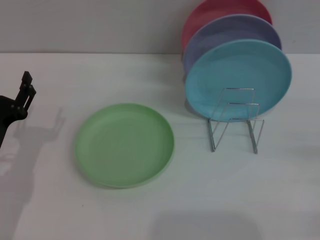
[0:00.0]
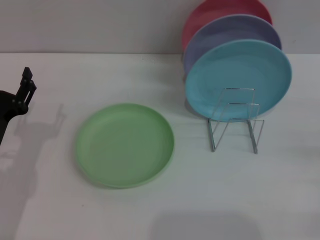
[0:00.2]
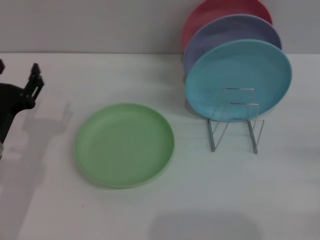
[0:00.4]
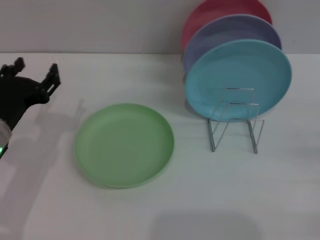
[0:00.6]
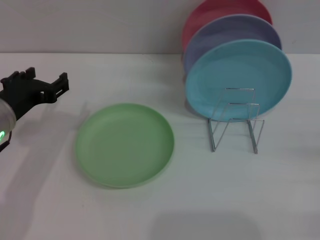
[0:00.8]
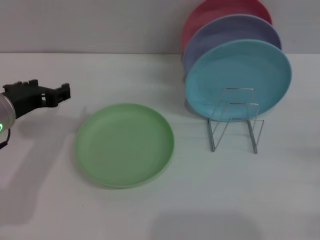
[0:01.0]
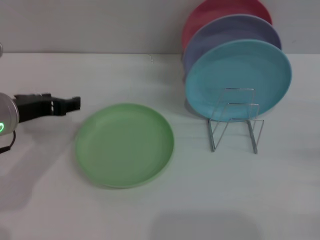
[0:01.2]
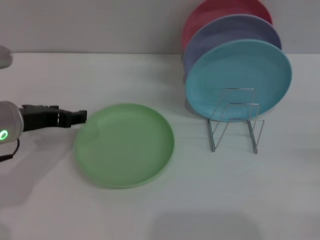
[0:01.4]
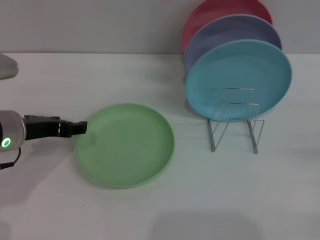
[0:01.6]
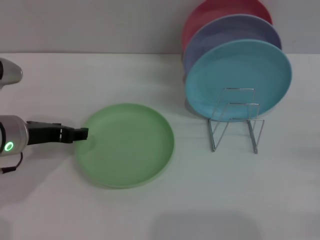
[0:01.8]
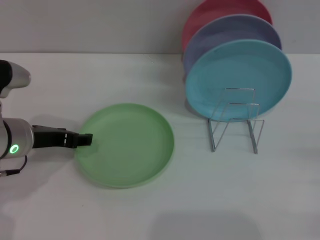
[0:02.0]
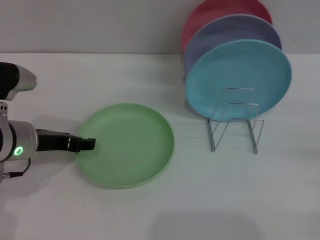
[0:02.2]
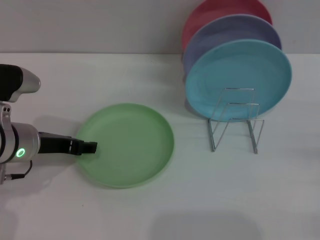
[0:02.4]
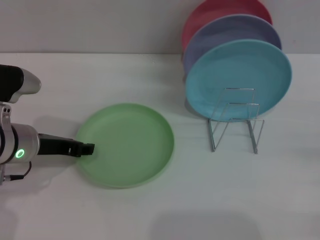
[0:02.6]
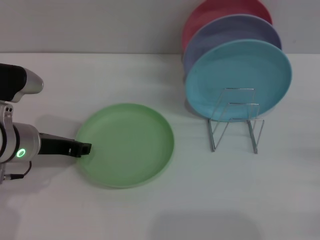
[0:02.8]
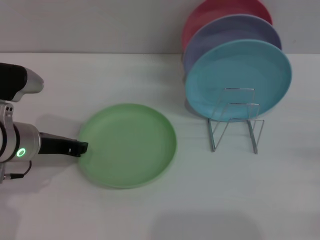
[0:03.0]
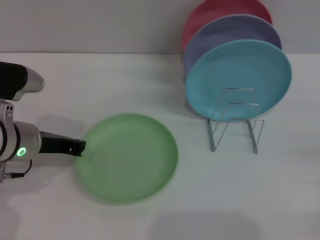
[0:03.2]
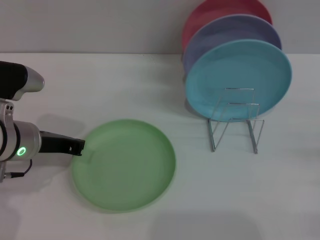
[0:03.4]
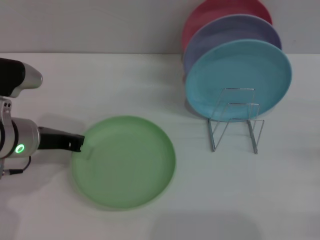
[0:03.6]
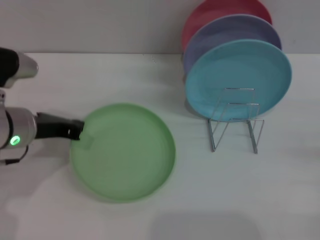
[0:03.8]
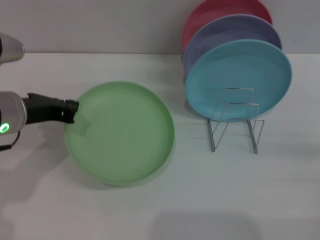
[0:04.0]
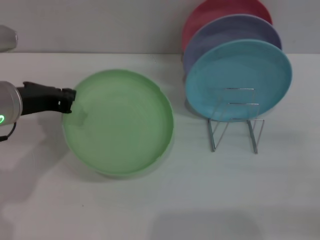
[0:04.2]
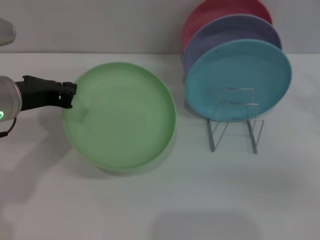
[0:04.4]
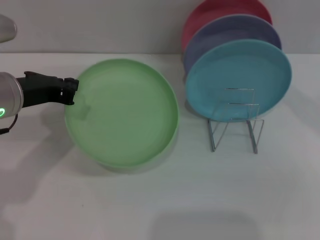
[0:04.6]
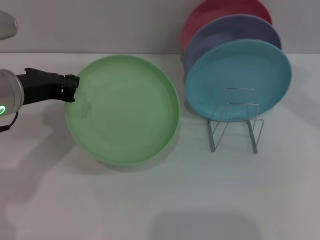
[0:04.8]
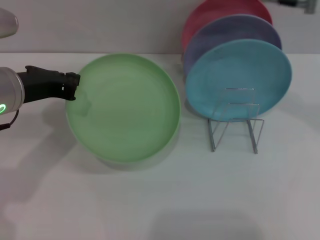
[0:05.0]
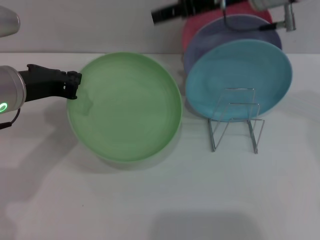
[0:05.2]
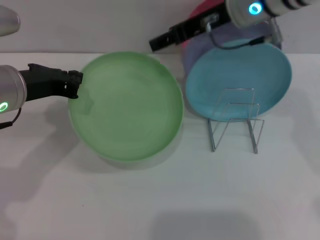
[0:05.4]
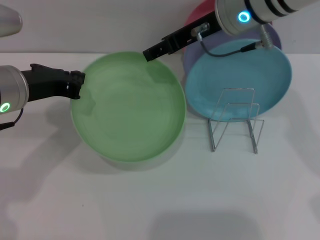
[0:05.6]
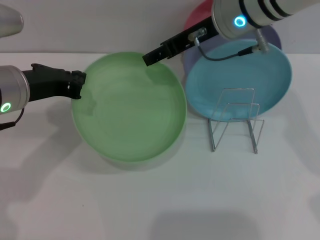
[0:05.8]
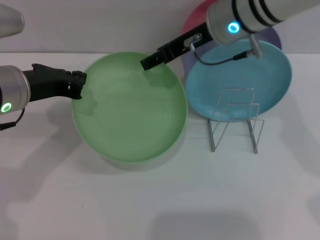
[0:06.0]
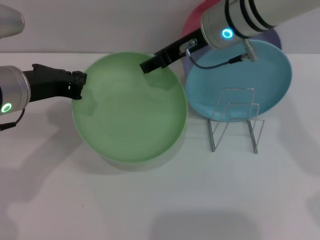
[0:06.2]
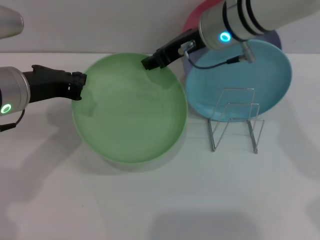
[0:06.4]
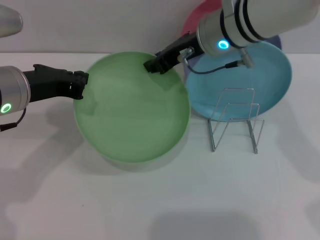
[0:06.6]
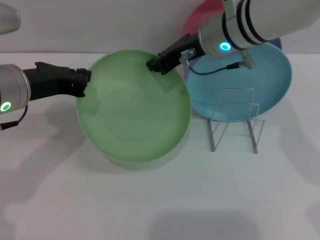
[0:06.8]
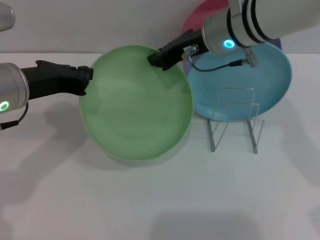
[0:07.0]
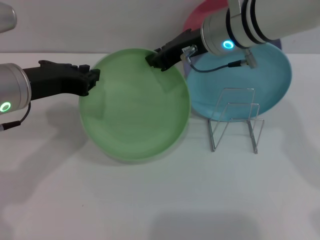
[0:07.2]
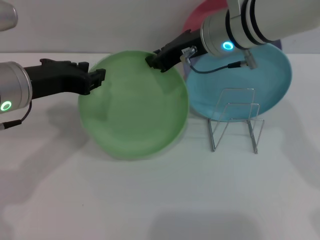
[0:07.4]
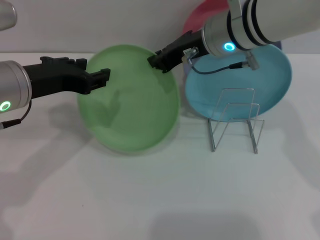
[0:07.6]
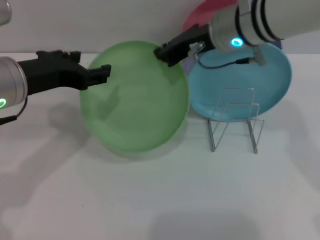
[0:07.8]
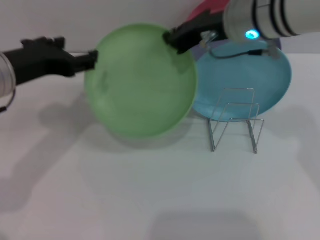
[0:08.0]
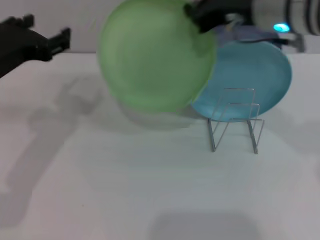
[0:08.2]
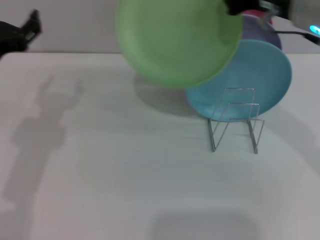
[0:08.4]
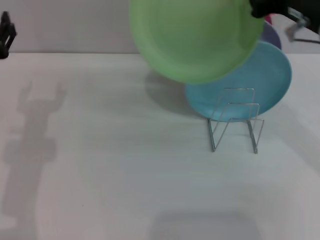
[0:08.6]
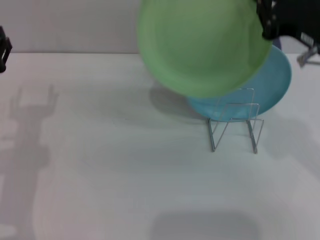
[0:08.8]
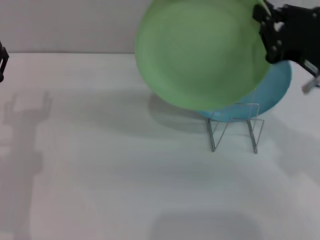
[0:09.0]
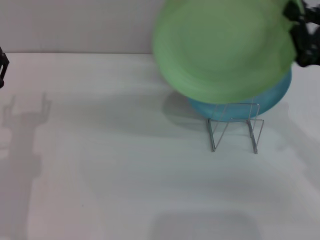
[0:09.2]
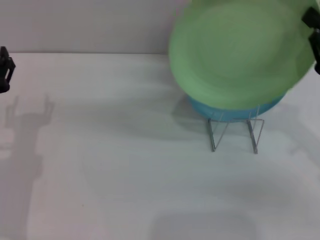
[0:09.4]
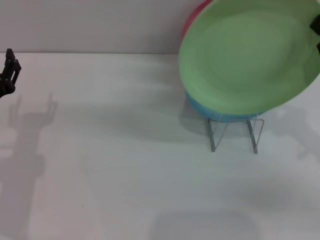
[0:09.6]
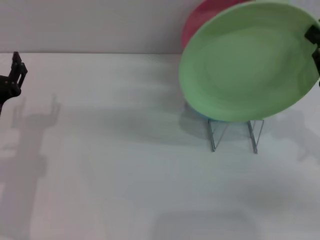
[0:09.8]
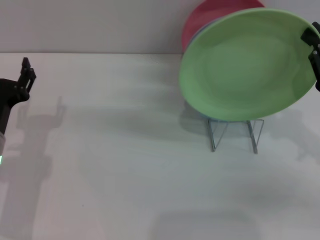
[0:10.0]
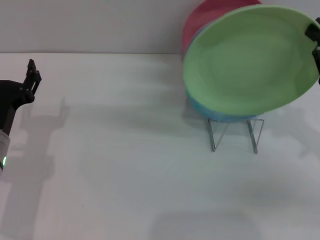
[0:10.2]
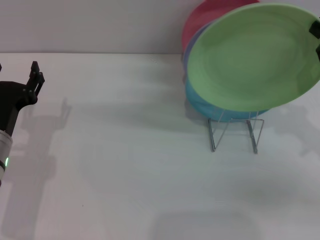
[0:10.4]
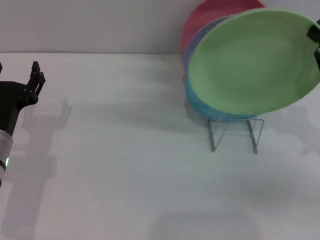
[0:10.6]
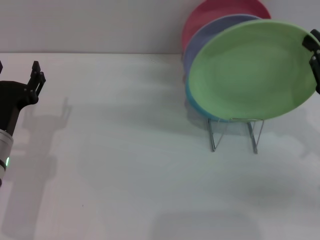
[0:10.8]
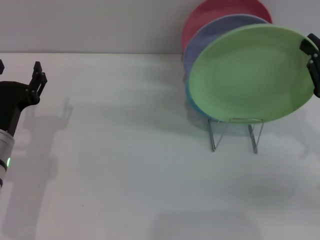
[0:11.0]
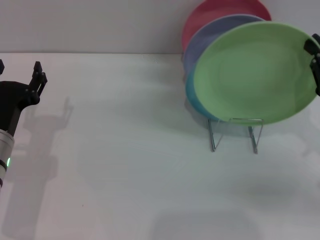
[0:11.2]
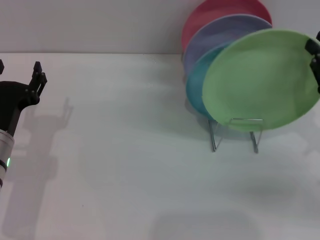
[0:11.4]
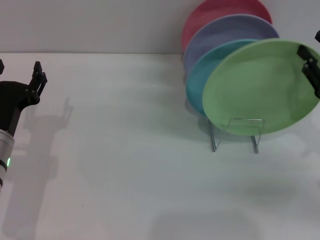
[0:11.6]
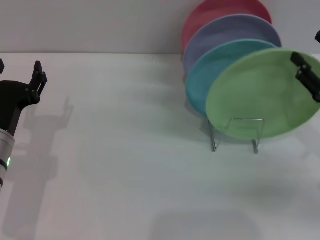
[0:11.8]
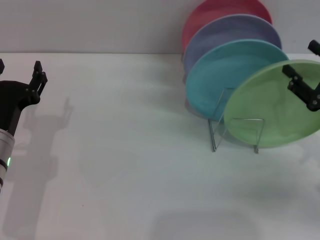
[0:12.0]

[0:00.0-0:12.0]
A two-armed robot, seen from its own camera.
Task of the whole recording: Grip the plate with one hand, pass it to the other, then set it on the shelf.
Step, 0:00.0 to 0:04.4: Pick up the plate with the left gripper.
Step, 0:04.6 to 0:08.2: Pass the plate from the left gripper to the right gripper.
0:00.0 to 0:01.6: The left gripper travels upward and forward by approximately 10 cm.
0:01.6 to 0:03.0: The grippers stay close to where they were, moving slightly.
0:03.0 to 0:04.4: The left gripper heads upward, covering approximately 5 cm, and closes up. Meanwhile the right gripper heads upward, forward and to the left, covering roughly 15 cm.
0:04.4 to 0:06.0: The right gripper moves to the left and forward, roughly 25 cm.
0:06.0 to 0:07.6: The right gripper closes. Meanwhile the left gripper opens.
0:07.6 to 0:09.0: The right gripper moves to the right and backward, some 20 cm, while the left gripper travels downward and to the left by about 10 cm, and opens.
0:09.0 to 0:10.4: The right gripper is displaced to the right by approximately 10 cm.
0:10.4 to 0:12.0: The right gripper opens up.

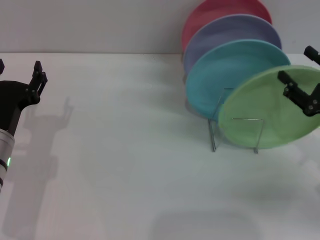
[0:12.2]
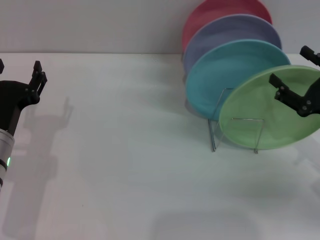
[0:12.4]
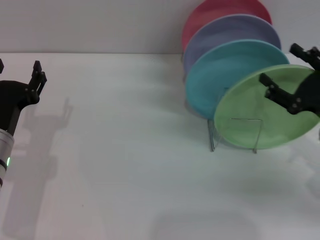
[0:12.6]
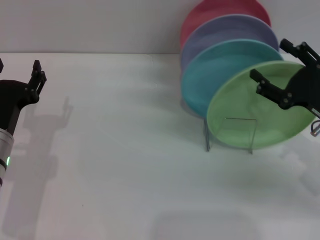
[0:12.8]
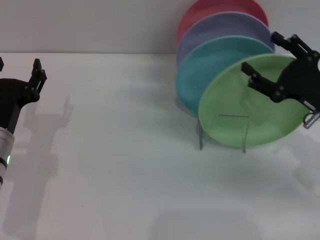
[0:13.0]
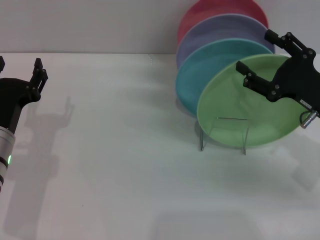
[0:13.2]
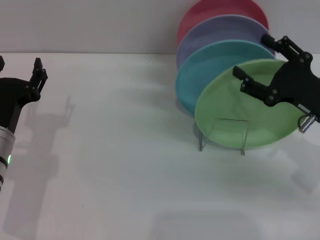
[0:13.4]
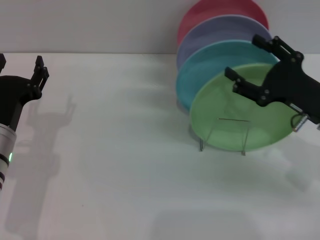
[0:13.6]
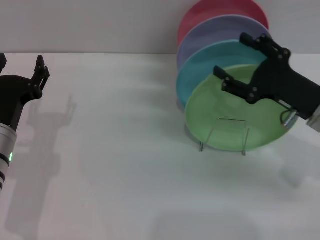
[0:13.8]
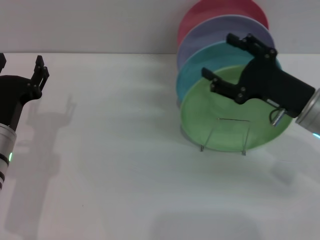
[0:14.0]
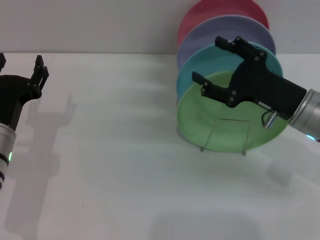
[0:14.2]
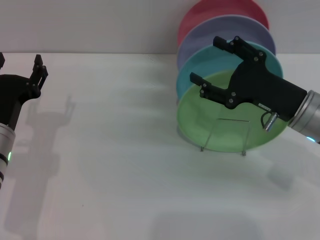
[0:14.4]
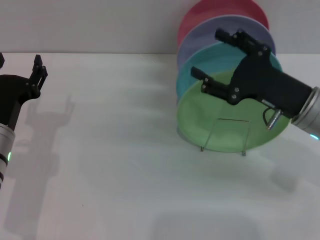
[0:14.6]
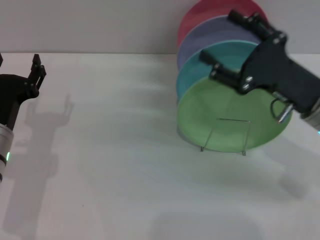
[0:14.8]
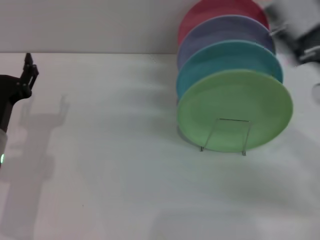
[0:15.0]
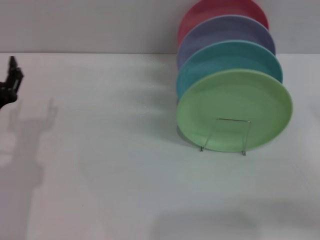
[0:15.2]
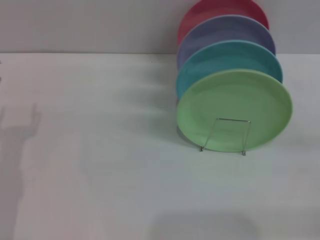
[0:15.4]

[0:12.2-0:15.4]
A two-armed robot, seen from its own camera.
Task of the whole recording: Grip the plate with one hand, pass it to the other, then set it on the shelf.
Step, 0:12.2 to 0:14.8: Place the plate on the shelf with the right gripper.
0:12.2 to 0:13.8: The right gripper travels to the left by roughly 5 cm.
0:13.8 to 0:15.4: The right gripper heads to the right and backward, covering approximately 15 cm; the left gripper moves roughly 5 cm.
